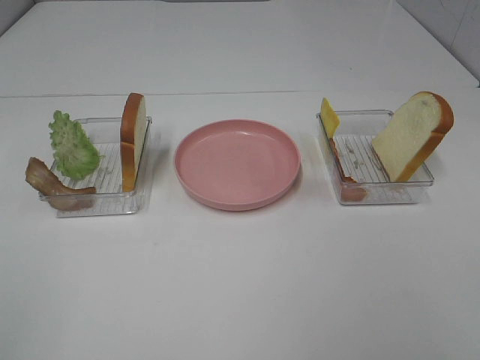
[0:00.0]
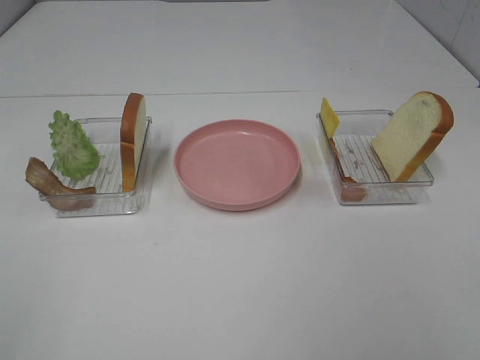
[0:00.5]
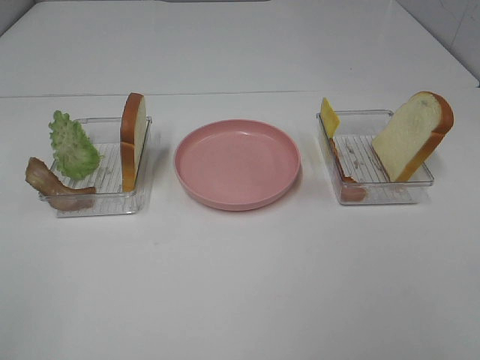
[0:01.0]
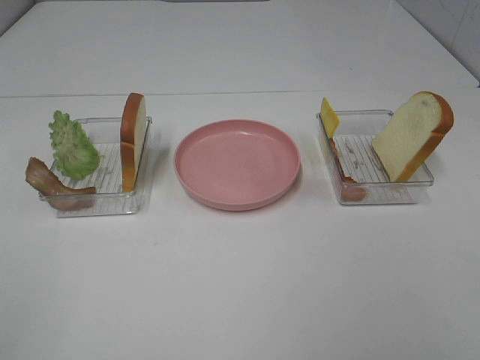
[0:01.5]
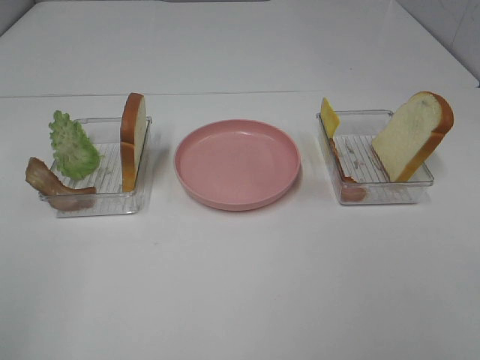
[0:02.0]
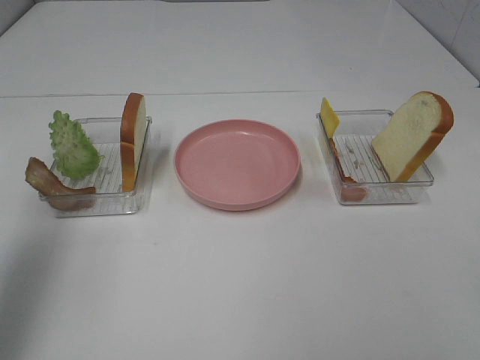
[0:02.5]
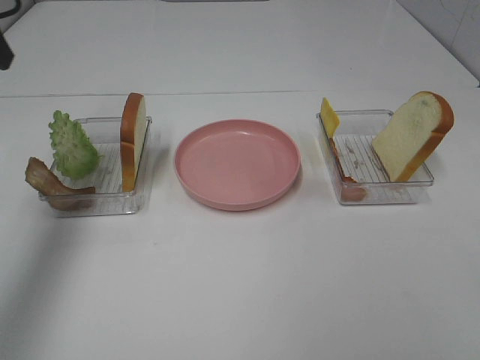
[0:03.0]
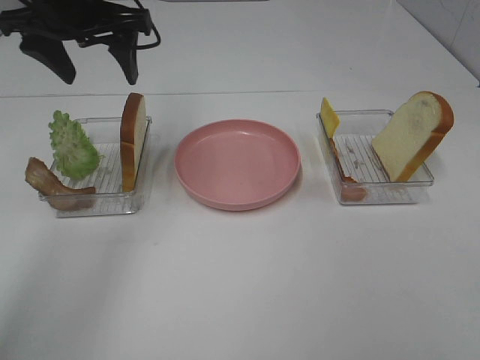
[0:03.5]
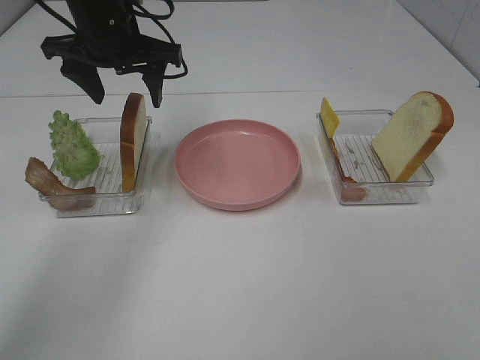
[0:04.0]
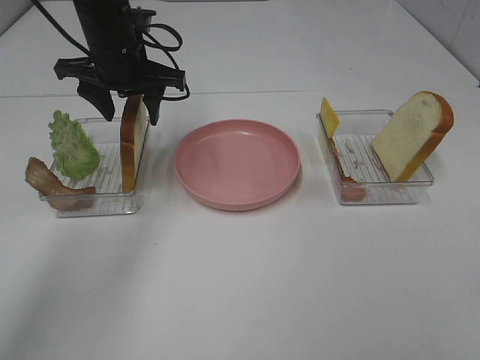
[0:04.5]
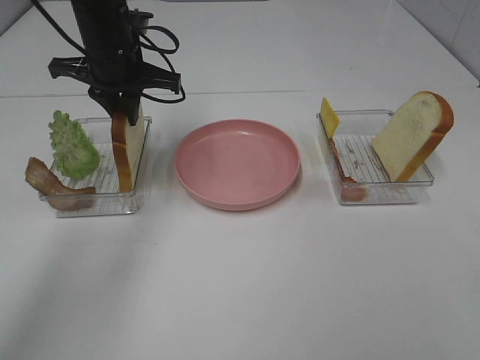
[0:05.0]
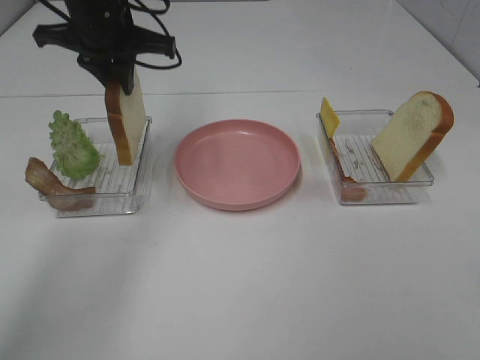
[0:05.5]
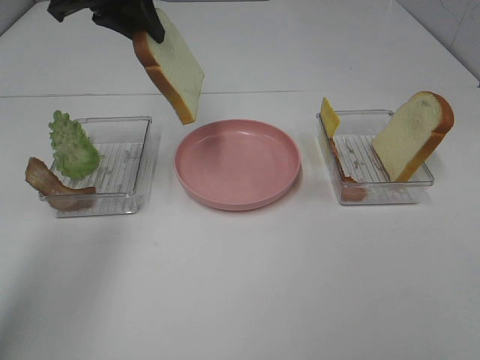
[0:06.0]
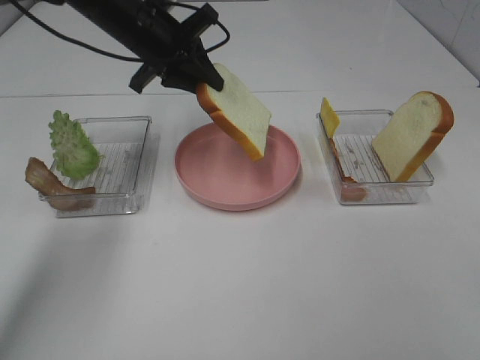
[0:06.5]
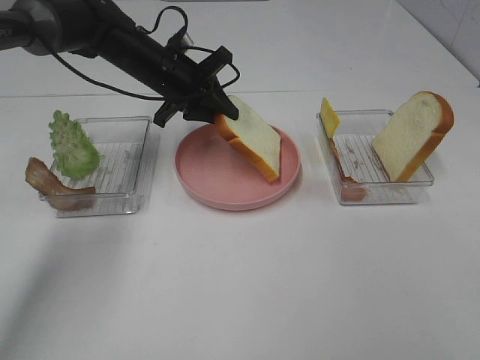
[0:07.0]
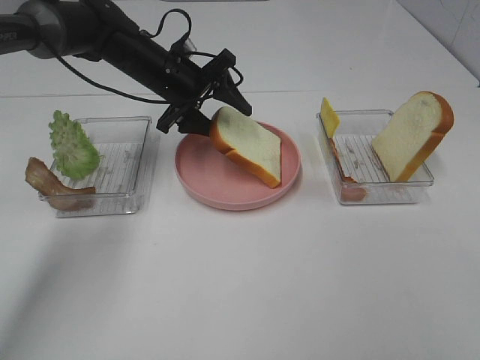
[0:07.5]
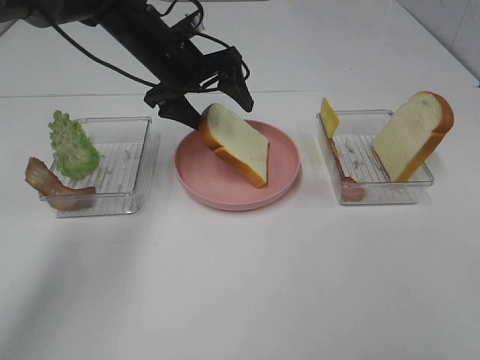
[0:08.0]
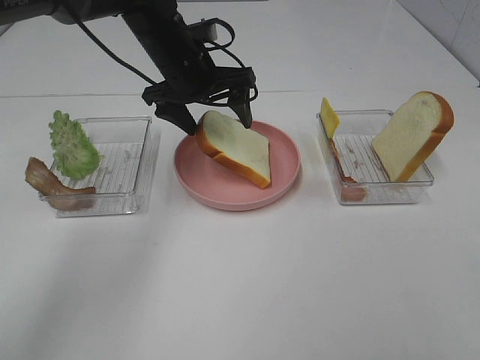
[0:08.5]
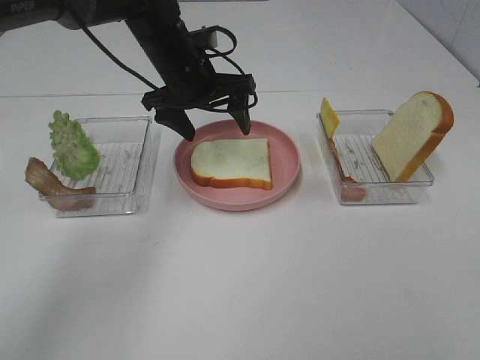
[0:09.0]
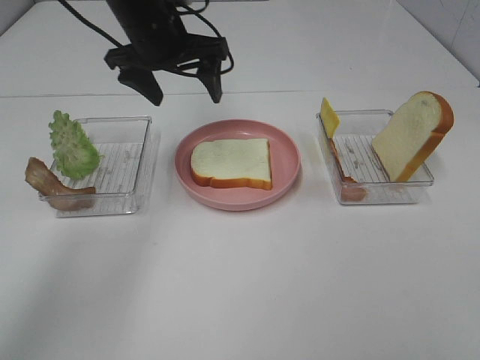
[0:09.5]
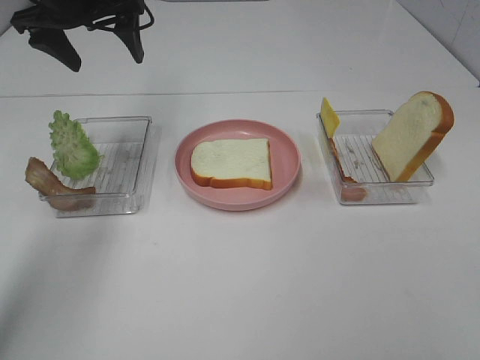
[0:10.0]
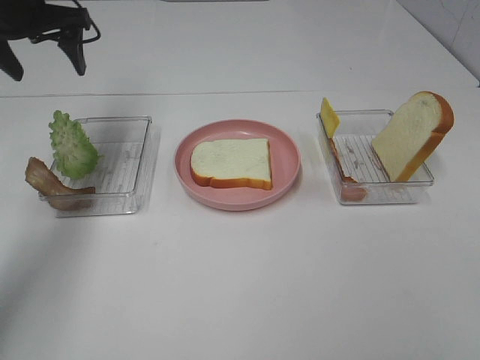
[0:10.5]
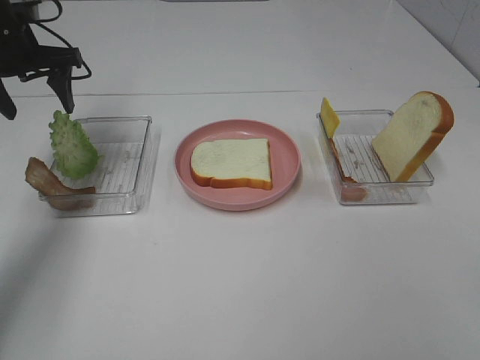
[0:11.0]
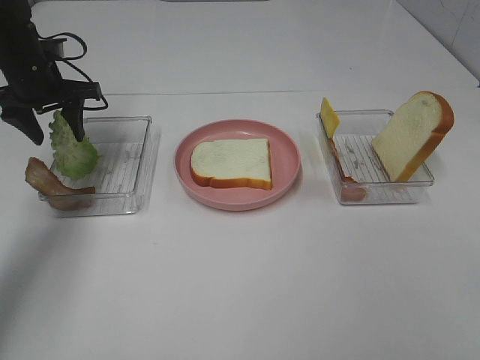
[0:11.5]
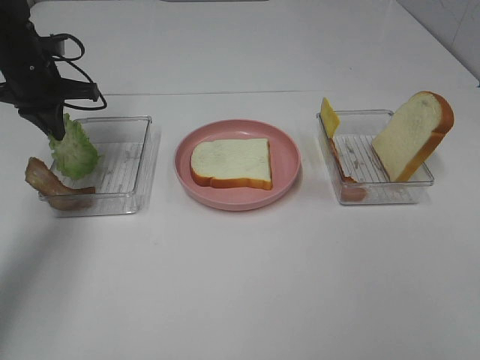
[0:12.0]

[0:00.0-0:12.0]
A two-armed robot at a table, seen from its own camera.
Task of the whole recording: Make sandwiches.
Step, 0.0 to 5.0 s: Left hand:grab the bread slice.
Step, 5.5 to 9.0 s: Left hand:place the bread slice on the plate.
2.0 to 4.0 s: The left gripper moves forward and to the right, some 40 cm.
4.0 to 6.0 s: The left gripper is displaced upward by about 5 cm, and closes up.
6.0 to 8.0 s: The left gripper goes about 15 cm downward and to the right, and opens up.
8.0 to 10.0 s: The left gripper is displaced to the left and upward by about 15 cm.
10.0 to 12.0 s: The left gripper is displaced downward and to the left by about 15 cm, and closes its fingers.

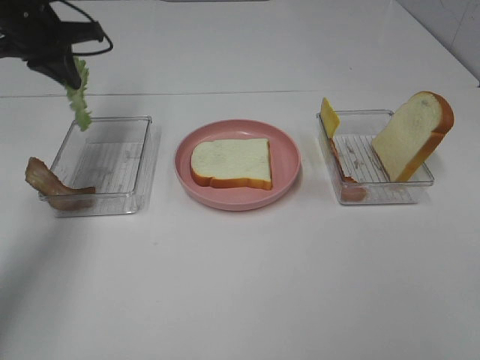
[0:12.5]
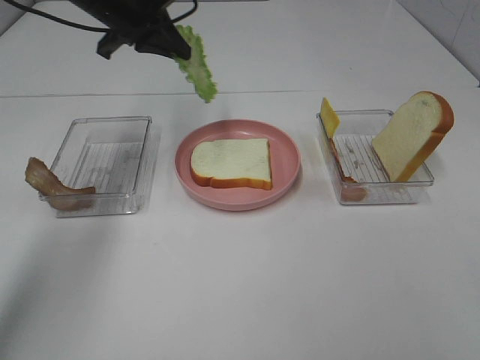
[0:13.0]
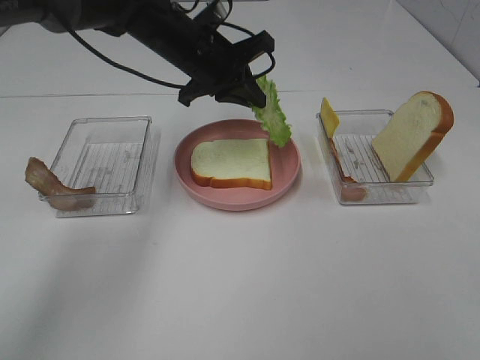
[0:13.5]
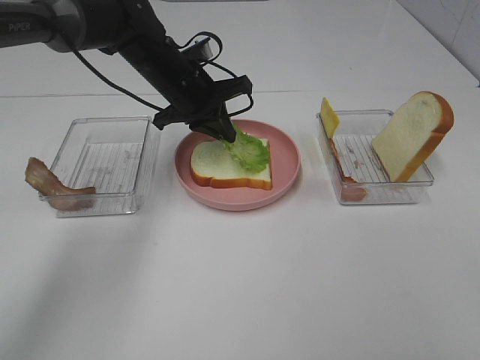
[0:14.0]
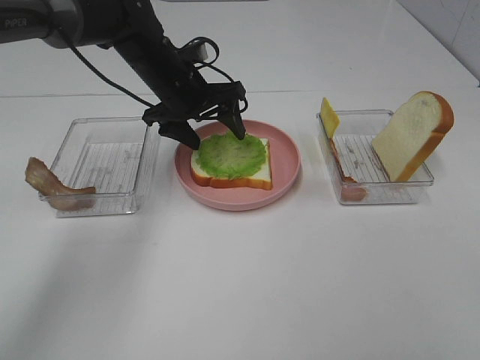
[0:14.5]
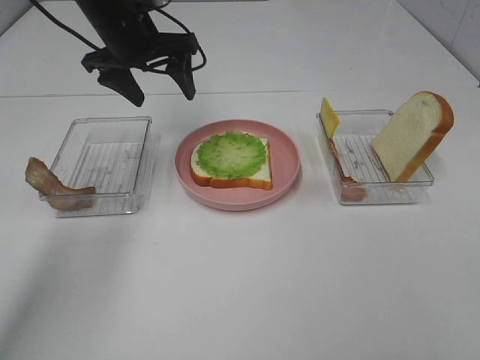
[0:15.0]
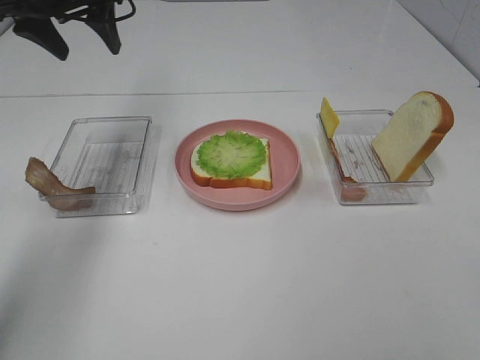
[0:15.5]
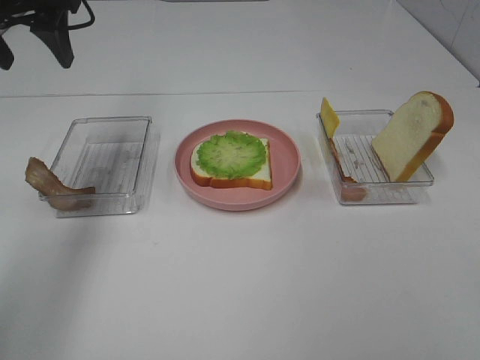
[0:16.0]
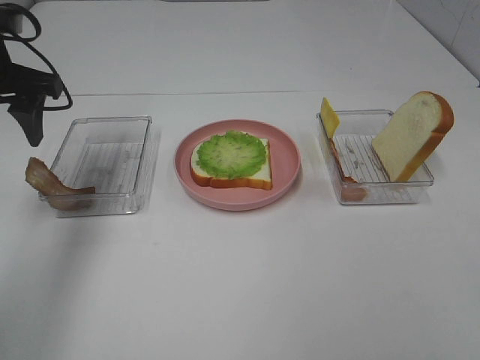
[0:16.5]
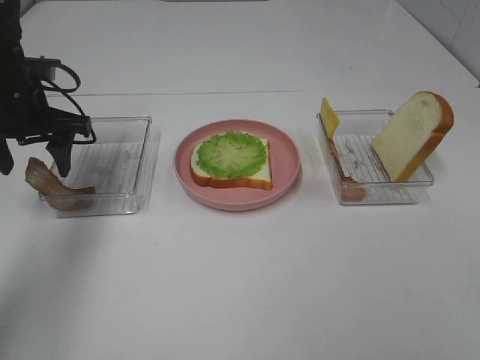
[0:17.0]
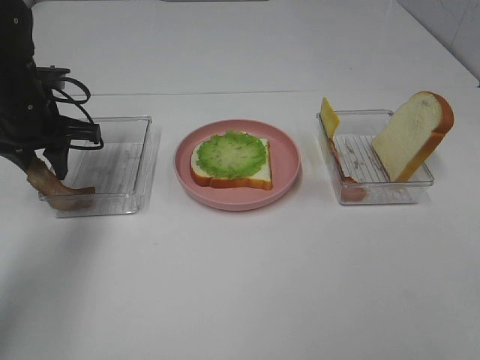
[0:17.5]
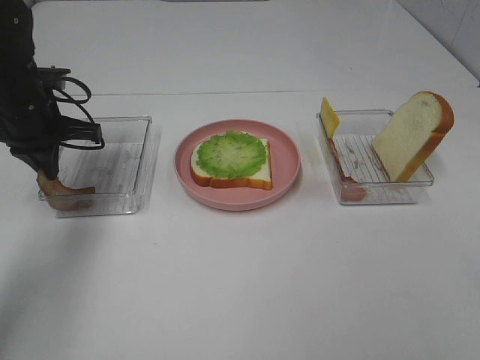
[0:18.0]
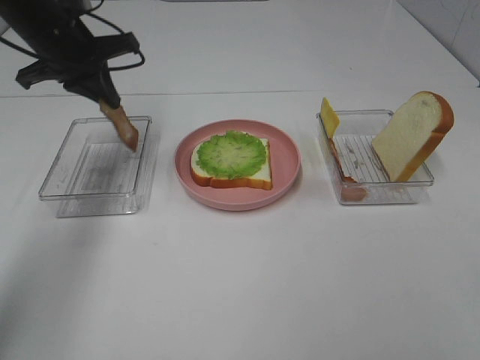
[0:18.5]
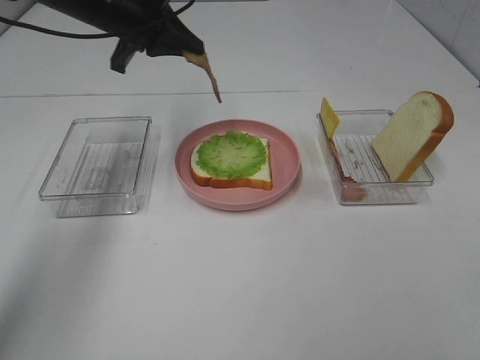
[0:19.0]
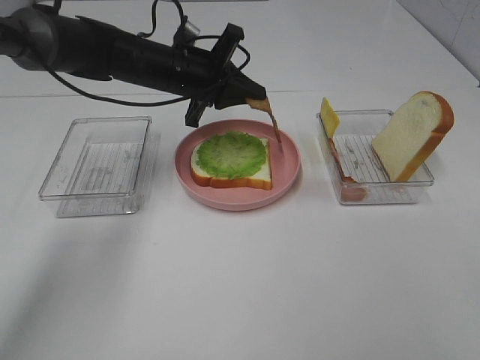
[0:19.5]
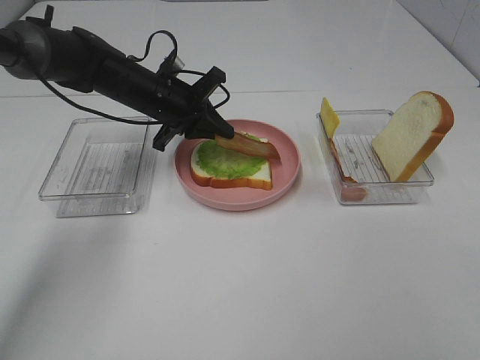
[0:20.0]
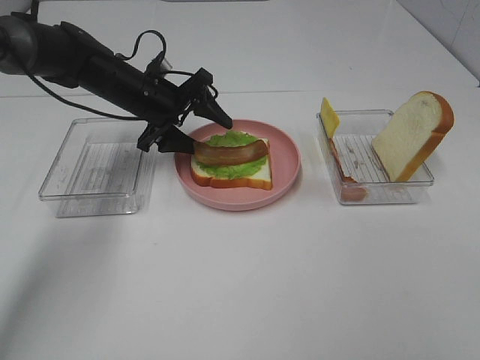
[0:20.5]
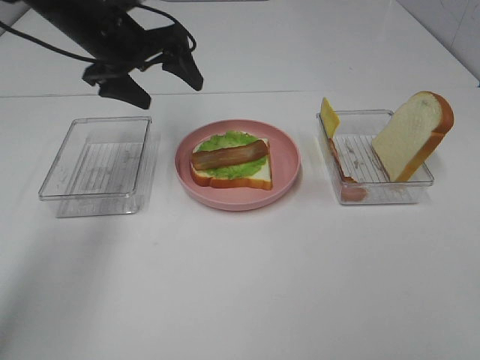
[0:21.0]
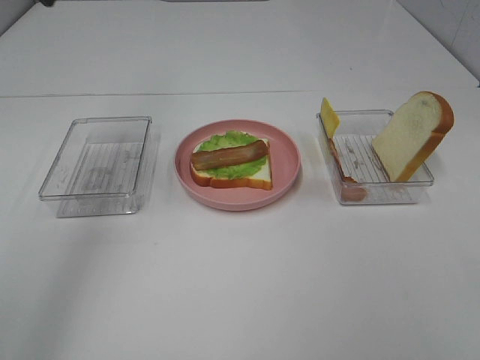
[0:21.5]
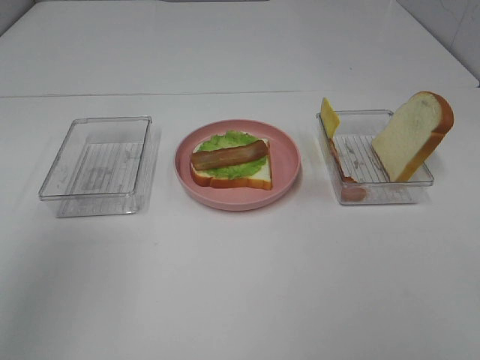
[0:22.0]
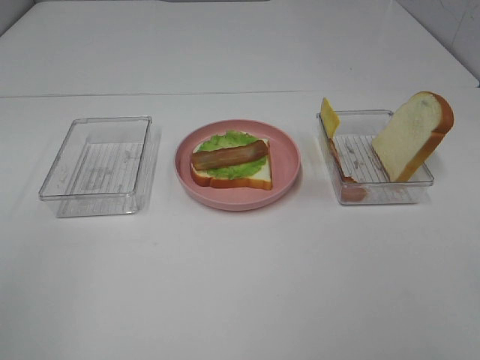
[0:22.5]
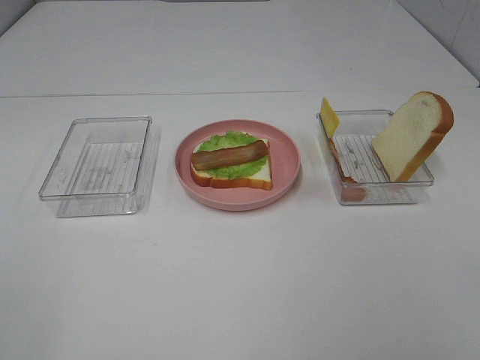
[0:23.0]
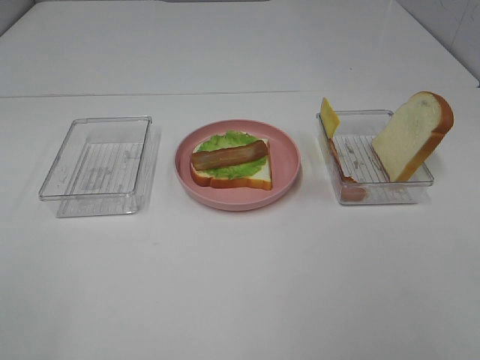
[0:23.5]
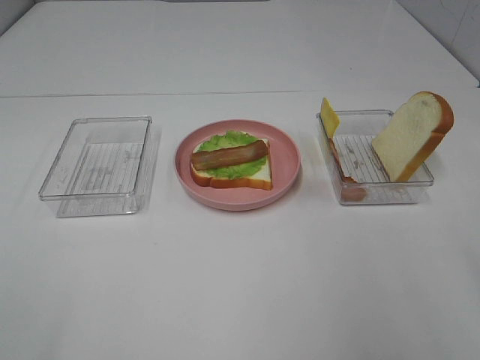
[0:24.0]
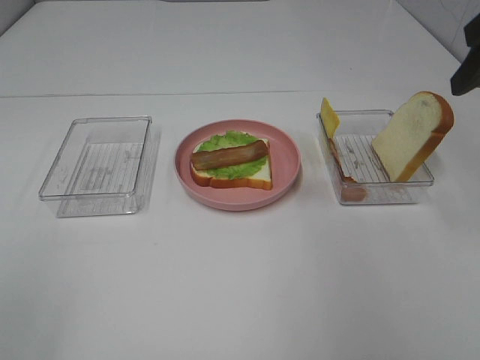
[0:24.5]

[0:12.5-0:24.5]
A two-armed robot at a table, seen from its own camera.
Task of the whole recording: Make sandwiches.
Step, 12.5 to 14.5 s: Left hand:place the lettuce slice on the bread slice.
Step, 15.0 to 17.5 s: Left hand:grab the bacon.
Step, 18.0 to 20.5 s: Left hand:place bacon on lettuce slice.
12.5 to 14.5 s: The left gripper moves to the right and downward, about 20 cm, and opens up.
14.5 to 16.5 s: The left gripper heads to the left, backward and upward, covering roughly 20 cm.
16.5 to 18.5 s: The left gripper is displaced forward by roughly 5 cm, travels downward and back again, approximately 10 cm each way, and closes its fingers.
18.5 to 20.5 s: The left gripper travels downward and to the right by roughly 15 cm, and opens its fingers.
20.5 to 22.5 s: The left gripper goes approximately 50 cm backward, upward and to the left.
22.5 to 24.5 s: The right gripper shifts approximately 30 cm forward.

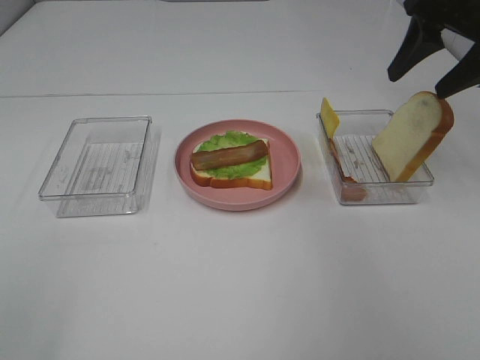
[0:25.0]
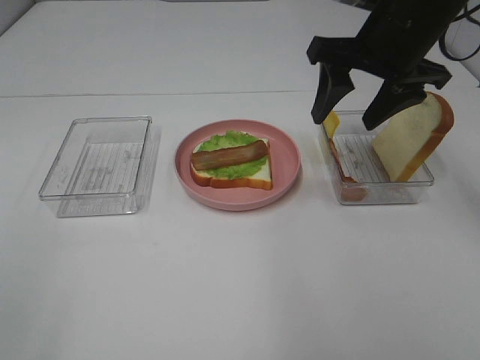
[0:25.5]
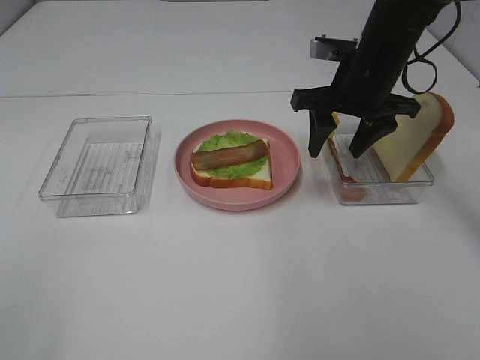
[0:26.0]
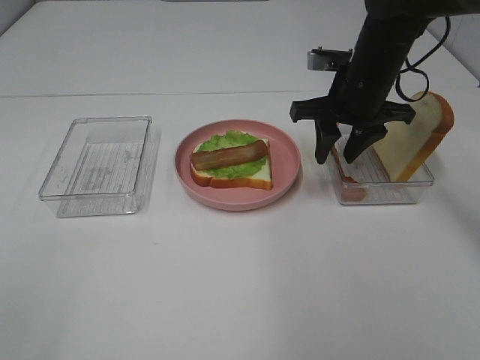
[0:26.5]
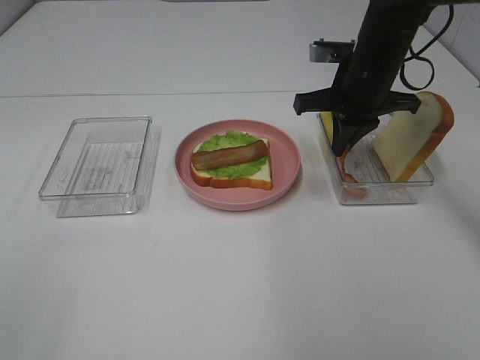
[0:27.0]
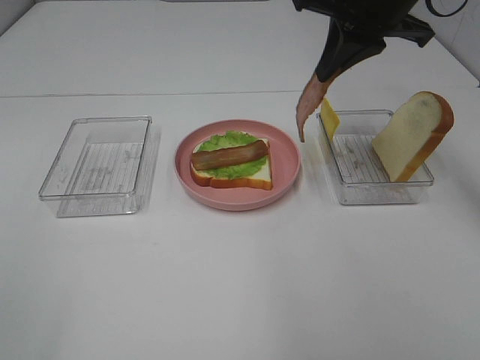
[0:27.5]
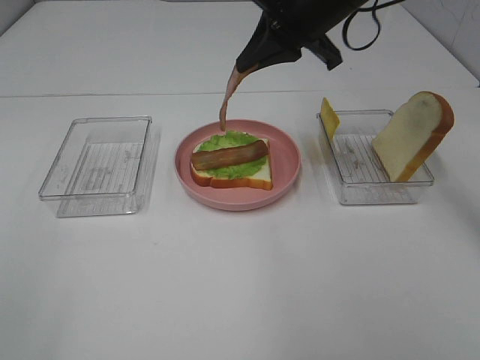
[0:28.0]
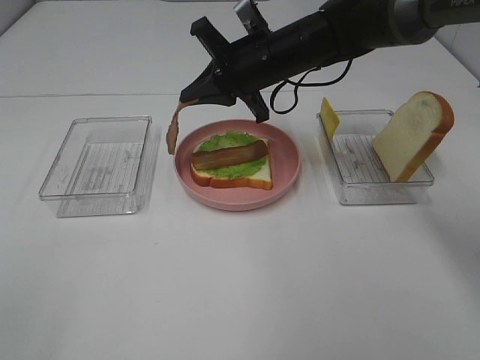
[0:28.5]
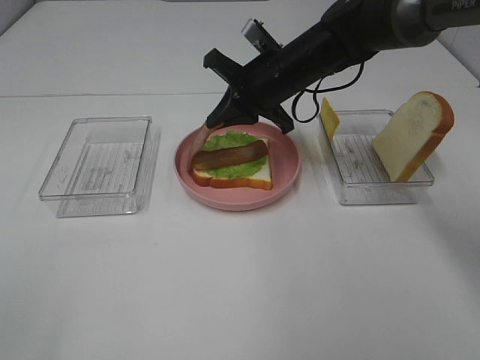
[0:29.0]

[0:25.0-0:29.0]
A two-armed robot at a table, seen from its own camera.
Task of the whole recording: Make sandwiches.
Step, 25.0 to 27.0 s: Right hand:grab the bacon.
25.0 to 27.0 s: The right gripper moves to the left and downward, roughly 15 cm, and closes.
27.0 to 29.0 s: The right gripper heads to the left, covering about 10 cm, and reaches about 10 cm upward, then returns.
